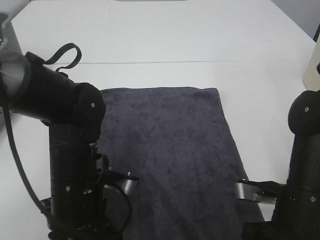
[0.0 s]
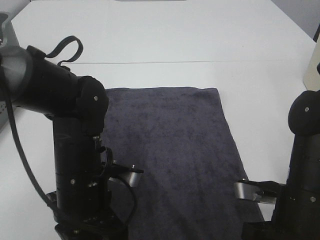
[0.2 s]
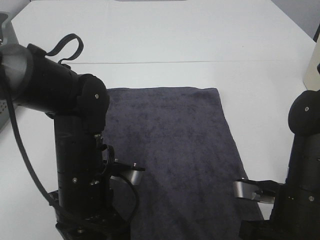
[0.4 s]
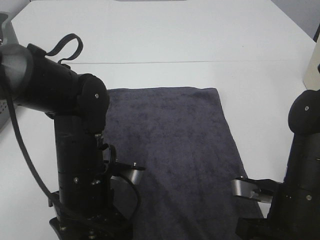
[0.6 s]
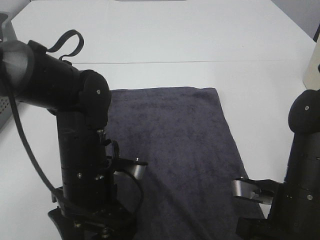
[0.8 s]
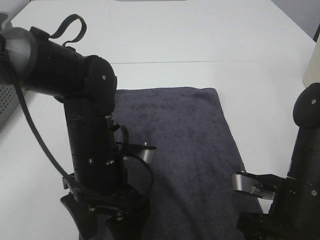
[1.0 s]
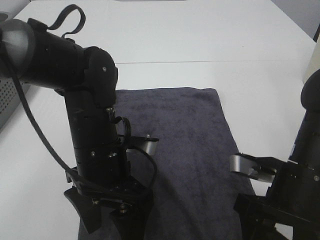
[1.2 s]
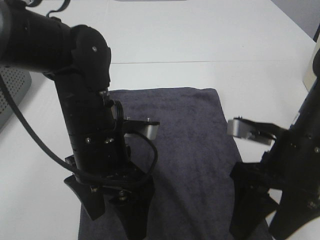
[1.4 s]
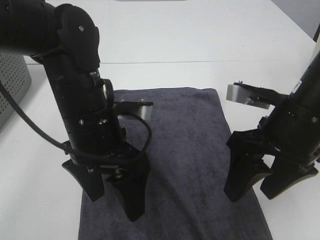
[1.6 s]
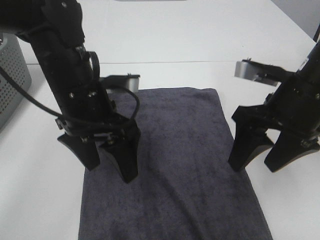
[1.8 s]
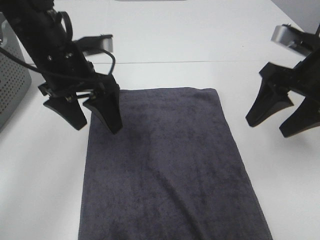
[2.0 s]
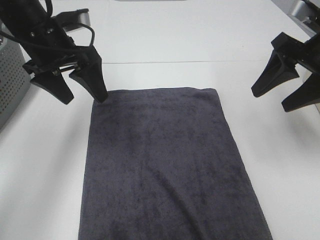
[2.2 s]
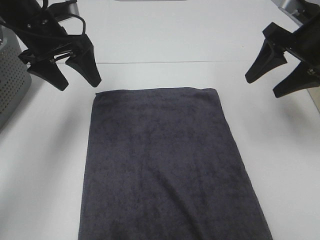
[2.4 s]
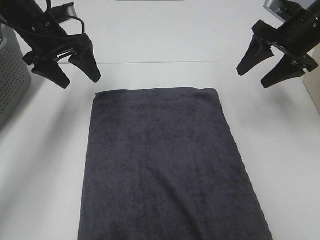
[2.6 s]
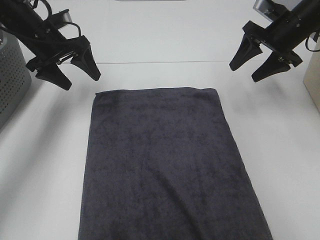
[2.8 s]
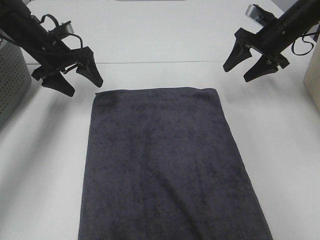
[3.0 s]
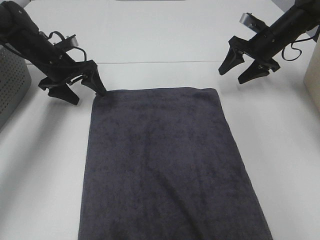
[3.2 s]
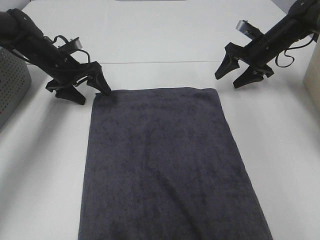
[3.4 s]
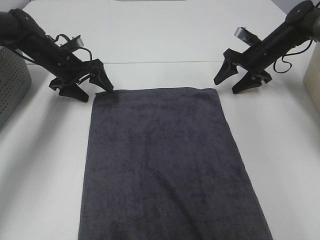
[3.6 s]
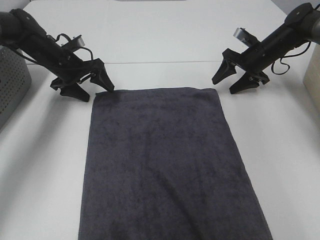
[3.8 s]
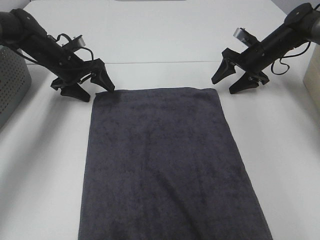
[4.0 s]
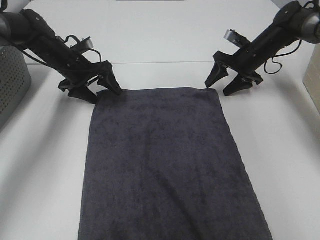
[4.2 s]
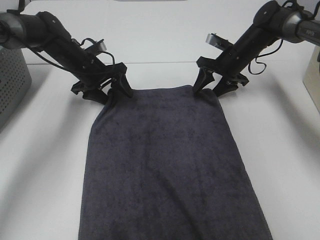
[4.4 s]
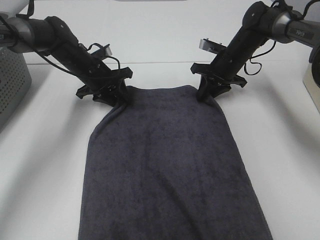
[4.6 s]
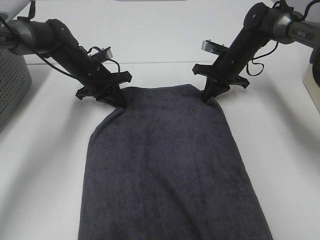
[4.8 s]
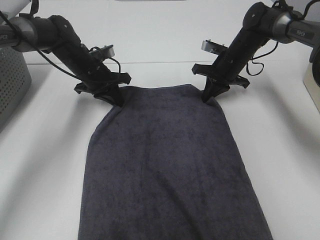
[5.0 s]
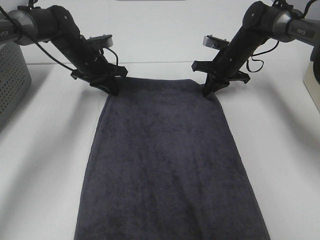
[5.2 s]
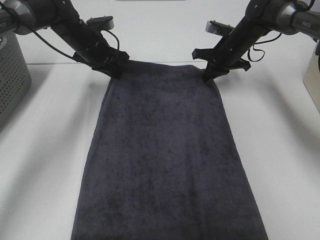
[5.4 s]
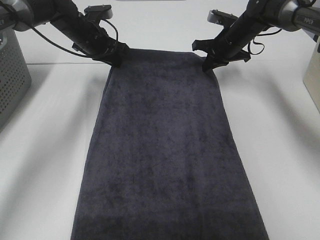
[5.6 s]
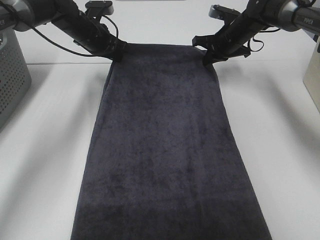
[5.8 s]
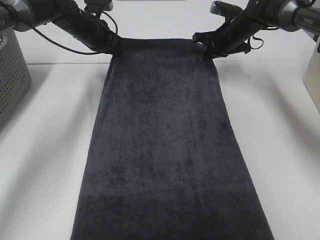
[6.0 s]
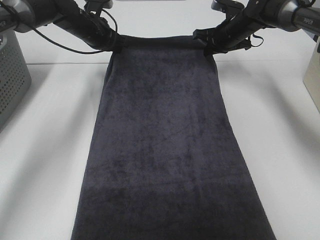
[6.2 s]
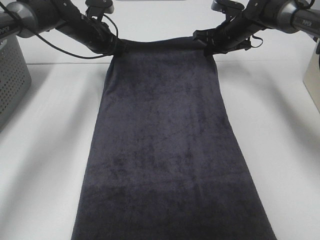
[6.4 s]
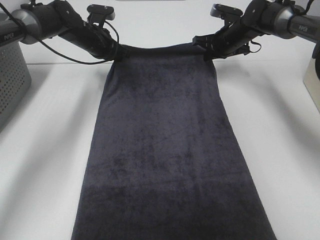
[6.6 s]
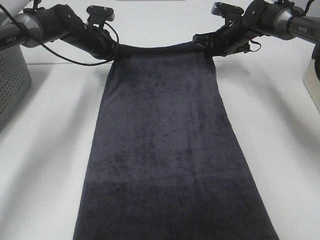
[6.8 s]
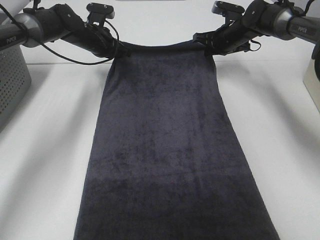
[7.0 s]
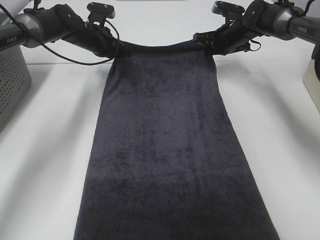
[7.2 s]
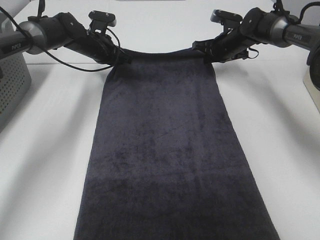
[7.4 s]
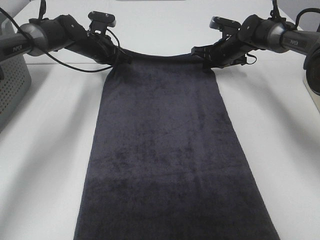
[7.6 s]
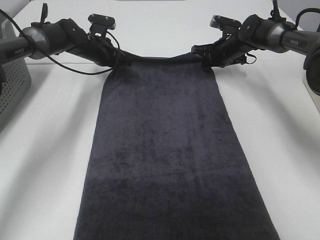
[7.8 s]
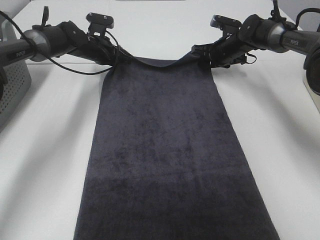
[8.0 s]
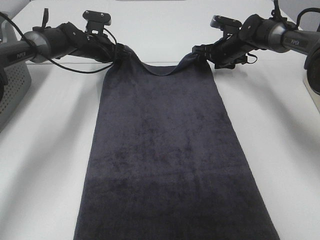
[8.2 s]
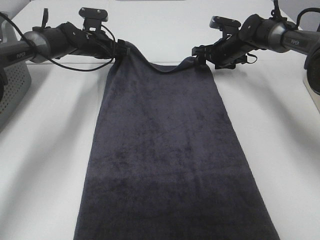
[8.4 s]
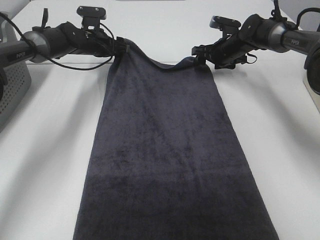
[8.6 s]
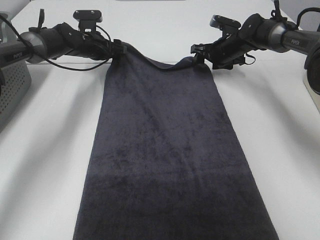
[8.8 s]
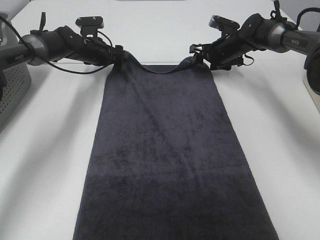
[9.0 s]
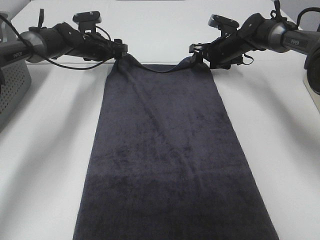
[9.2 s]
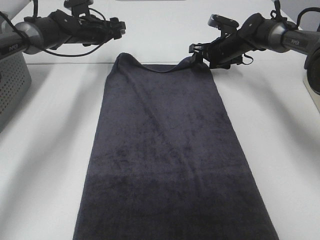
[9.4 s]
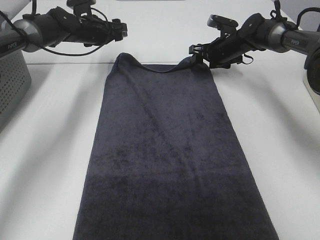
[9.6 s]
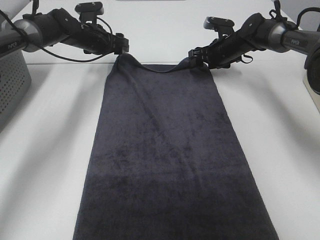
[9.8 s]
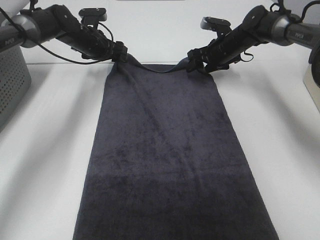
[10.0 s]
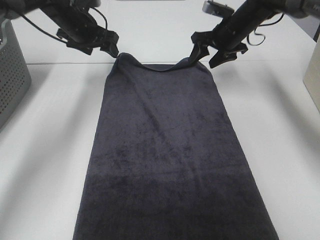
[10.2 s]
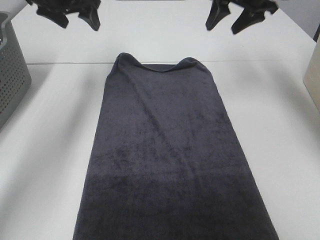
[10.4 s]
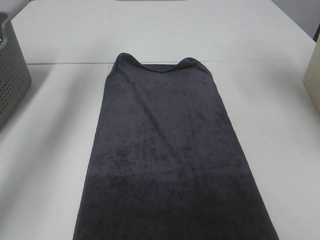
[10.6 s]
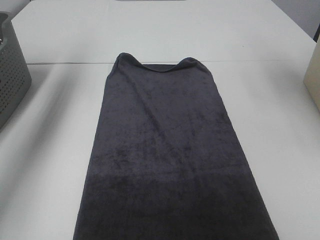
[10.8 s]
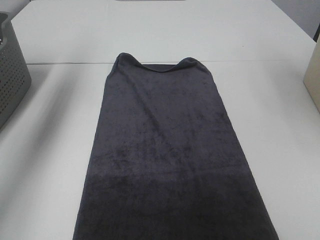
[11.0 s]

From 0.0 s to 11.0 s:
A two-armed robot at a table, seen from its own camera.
Task of the whole recording: Remove the towel and place it.
Step, from 0.0 s to 3.8 s: Left hand:adjust the gray towel.
Step, from 0.0 s to 3.8 s: Right hand:adjust the gray towel.
From 0.0 s to 1.6 s: The left gripper shifts about 10 cm upward, and opens, while the right gripper moves upward and forward, roughly 10 cm, and opens its fingers.
From 1.6 s to 3.2 s: The right gripper travels forward by roughly 30 cm, while the left gripper travels forward and to the left by approximately 30 cm.
From 3.2 s to 4.8 s: The right gripper travels to the left and downward by approximately 10 cm, and closes; the left gripper is displaced to the right by roughly 5 cm, and closes.
From 4.8 s to 6.2 s: The right gripper moves upward, some 5 cm. The left gripper travels upward and forward by about 10 cm.
From 6.2 s to 7.8 s: The two grippers go roughly 5 cm downward.
From 7.8 s to 9.4 s: The right gripper opens its fingers; the left gripper opens up.
From 9.4 s to 11.0 s: The left gripper shifts about 35 cm upward, backward and to the left. Meanwhile the right gripper goes roughly 40 cm upward and backward.

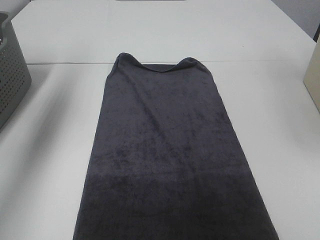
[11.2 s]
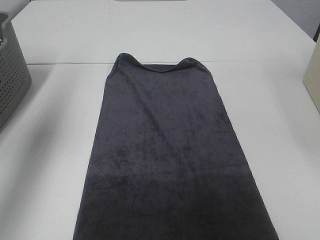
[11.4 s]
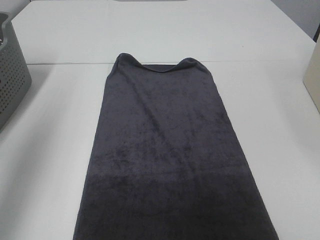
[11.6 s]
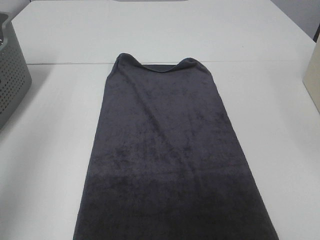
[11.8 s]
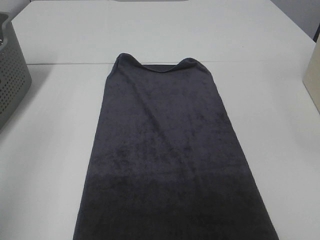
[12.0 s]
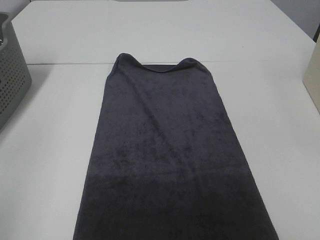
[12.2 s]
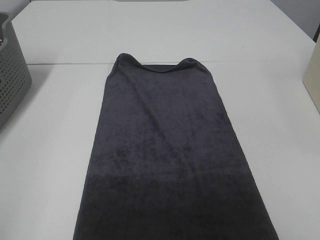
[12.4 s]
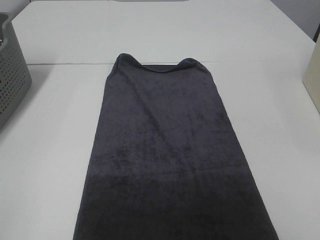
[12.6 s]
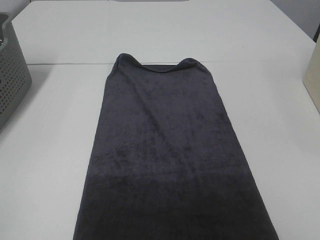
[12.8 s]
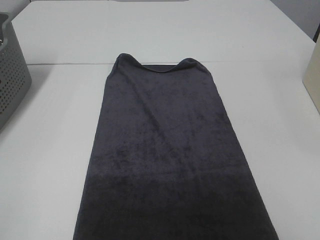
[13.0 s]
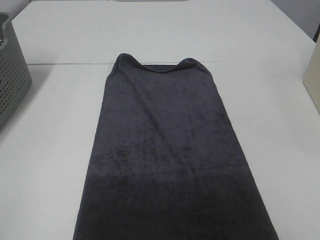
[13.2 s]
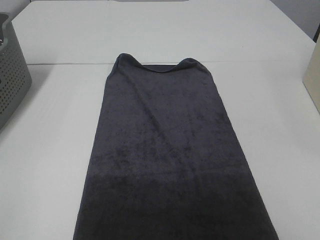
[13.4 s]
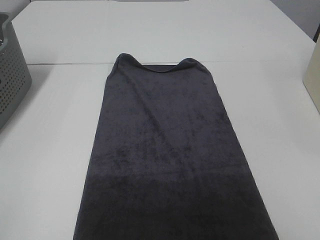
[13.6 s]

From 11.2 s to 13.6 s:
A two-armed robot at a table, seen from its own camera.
Task of the whole recording: Remove the towel and place it.
From 11.2 s to 12.4 s: The left gripper heads backward, covering roughly 35 cm.
